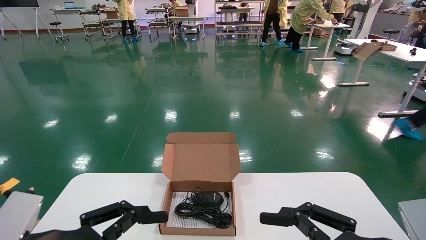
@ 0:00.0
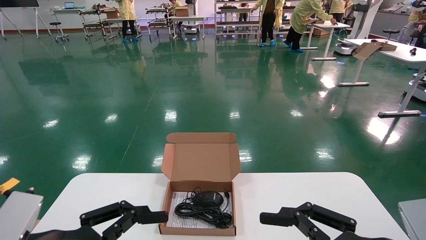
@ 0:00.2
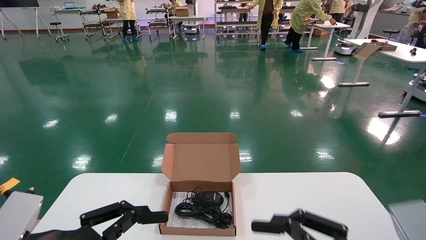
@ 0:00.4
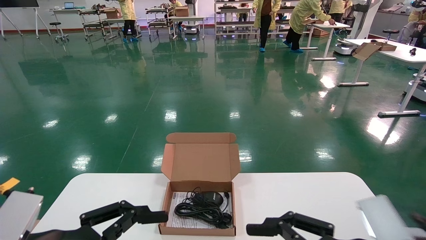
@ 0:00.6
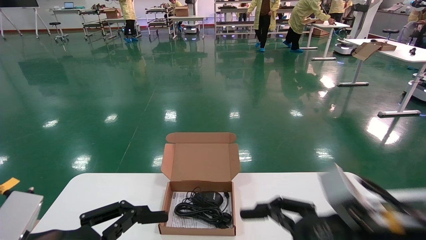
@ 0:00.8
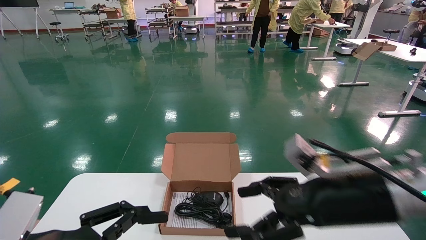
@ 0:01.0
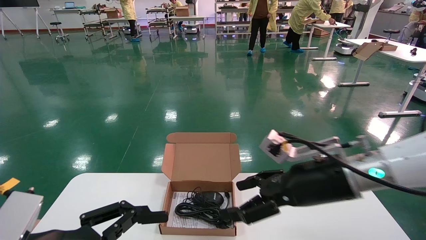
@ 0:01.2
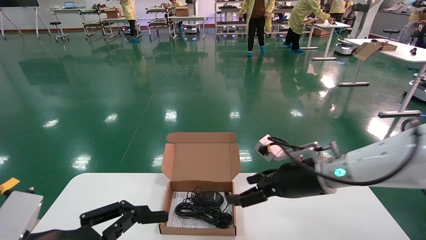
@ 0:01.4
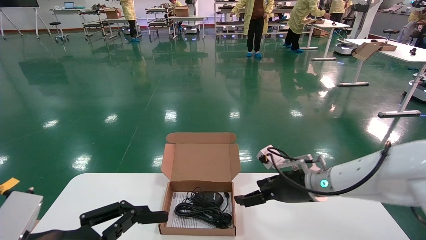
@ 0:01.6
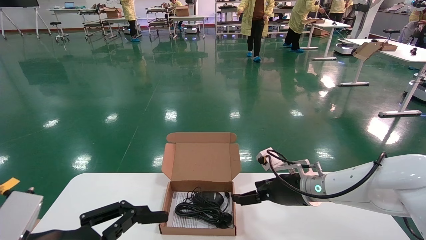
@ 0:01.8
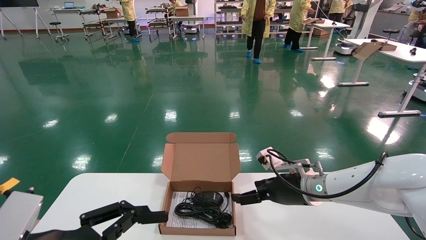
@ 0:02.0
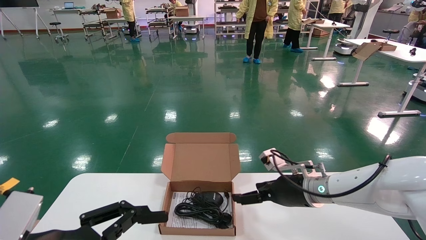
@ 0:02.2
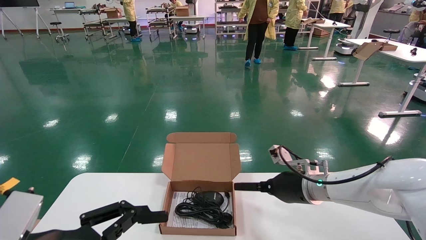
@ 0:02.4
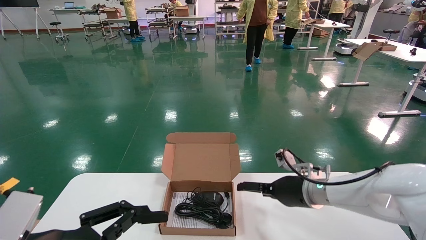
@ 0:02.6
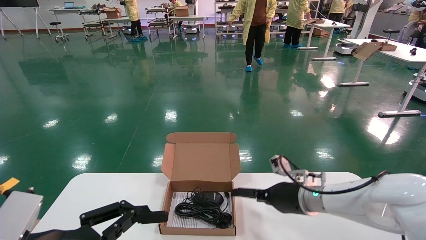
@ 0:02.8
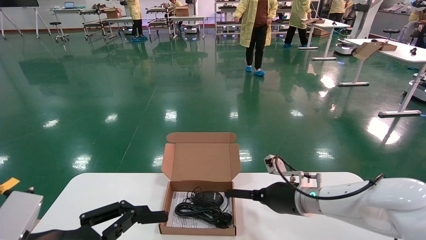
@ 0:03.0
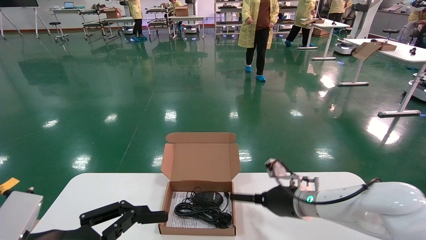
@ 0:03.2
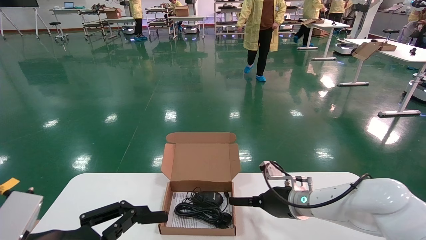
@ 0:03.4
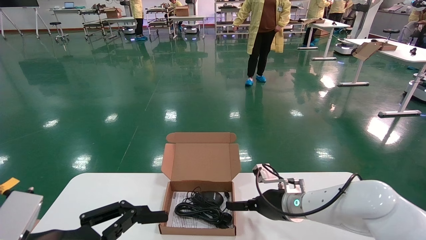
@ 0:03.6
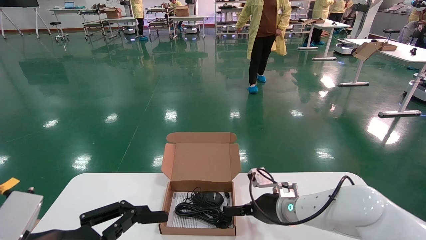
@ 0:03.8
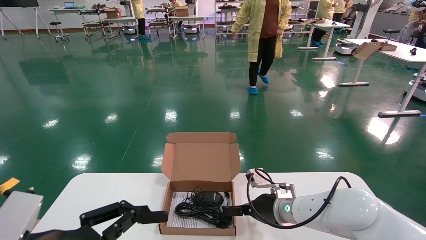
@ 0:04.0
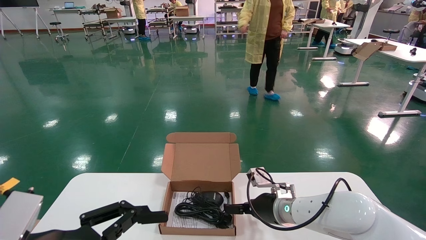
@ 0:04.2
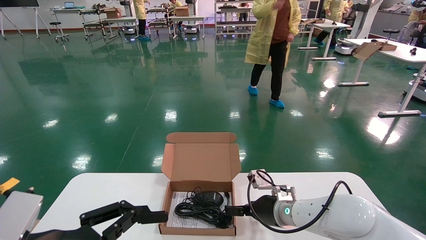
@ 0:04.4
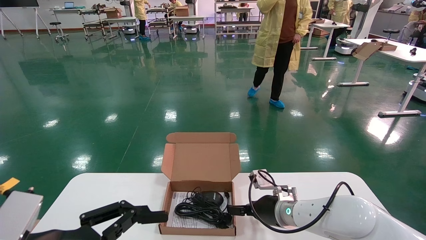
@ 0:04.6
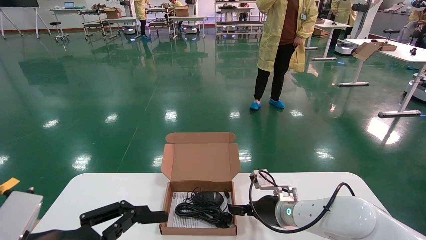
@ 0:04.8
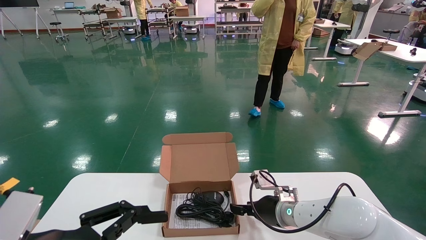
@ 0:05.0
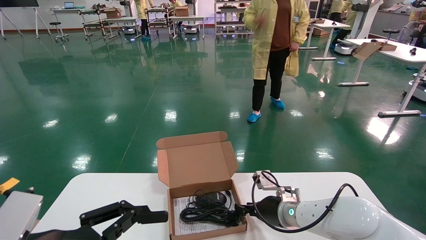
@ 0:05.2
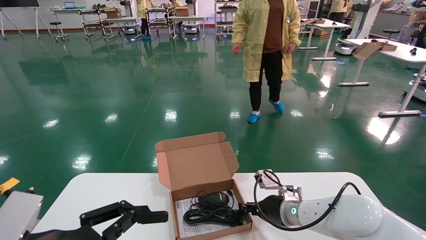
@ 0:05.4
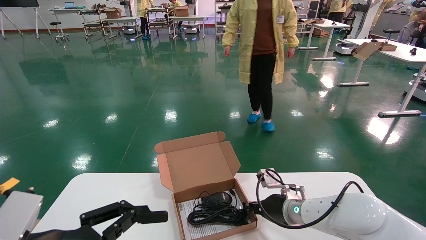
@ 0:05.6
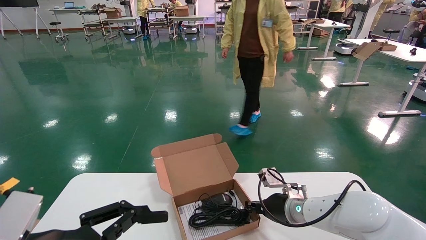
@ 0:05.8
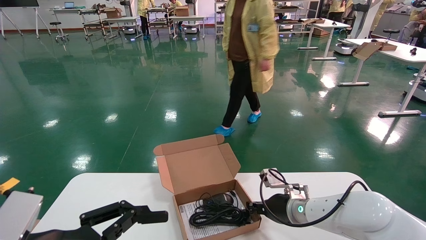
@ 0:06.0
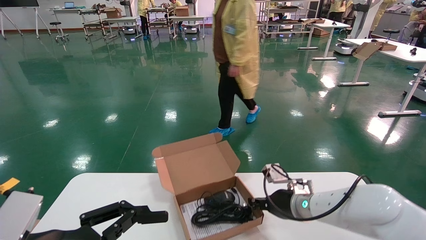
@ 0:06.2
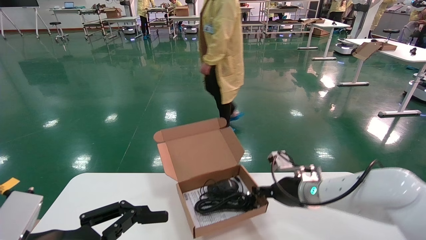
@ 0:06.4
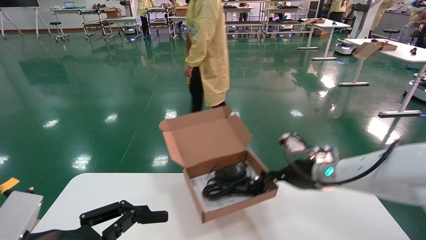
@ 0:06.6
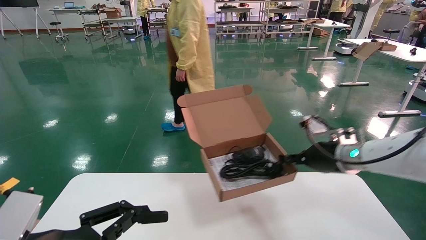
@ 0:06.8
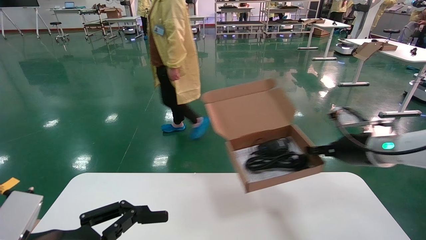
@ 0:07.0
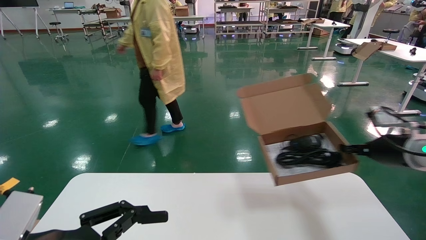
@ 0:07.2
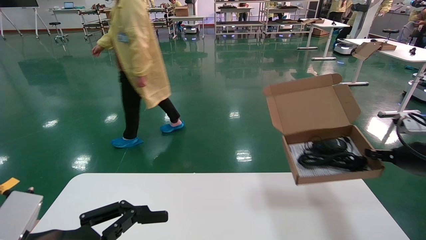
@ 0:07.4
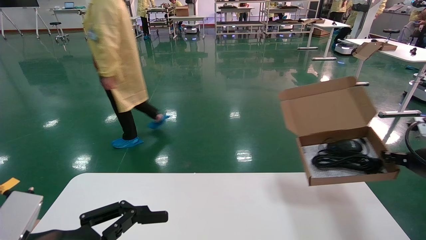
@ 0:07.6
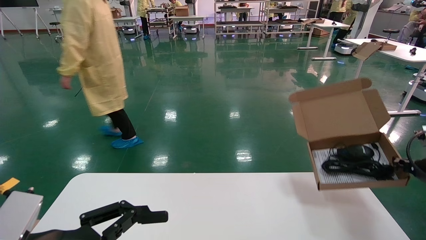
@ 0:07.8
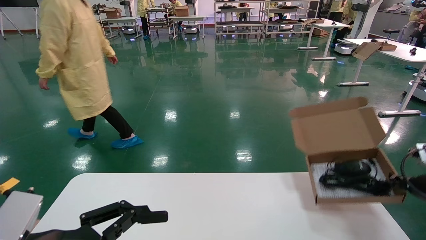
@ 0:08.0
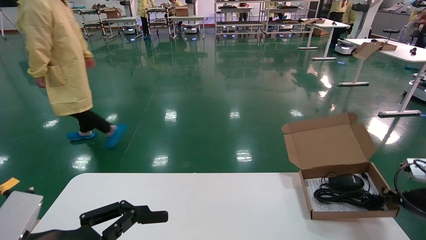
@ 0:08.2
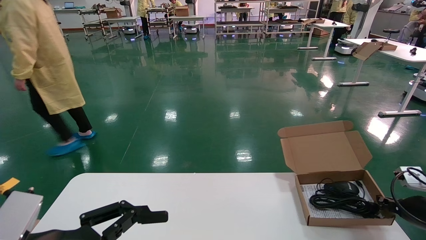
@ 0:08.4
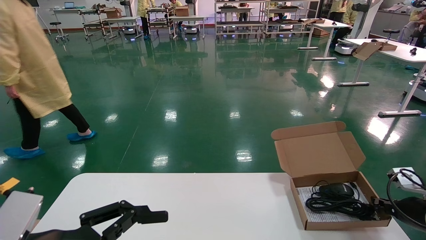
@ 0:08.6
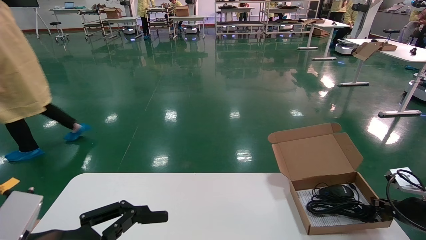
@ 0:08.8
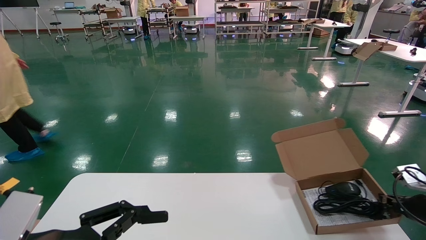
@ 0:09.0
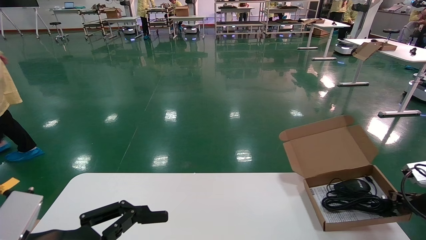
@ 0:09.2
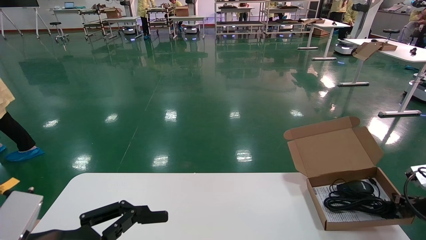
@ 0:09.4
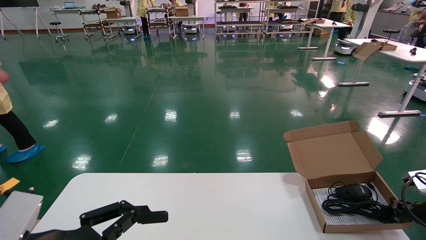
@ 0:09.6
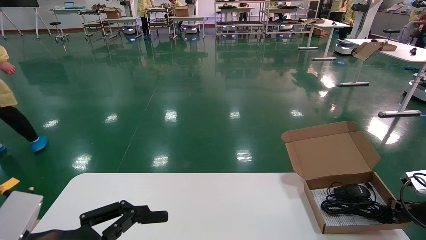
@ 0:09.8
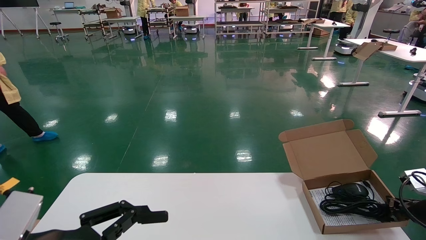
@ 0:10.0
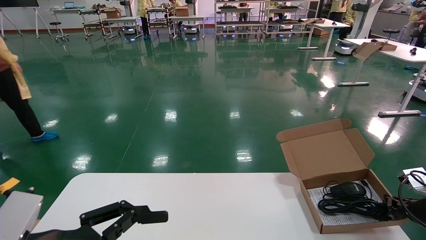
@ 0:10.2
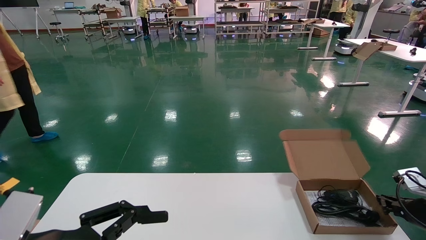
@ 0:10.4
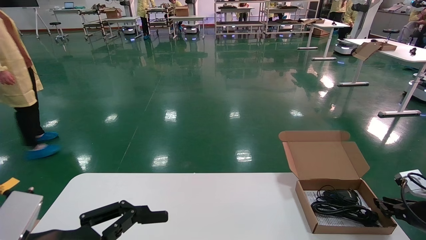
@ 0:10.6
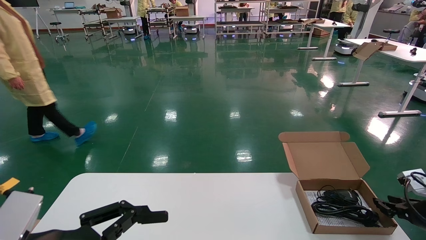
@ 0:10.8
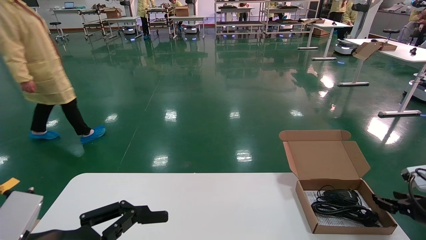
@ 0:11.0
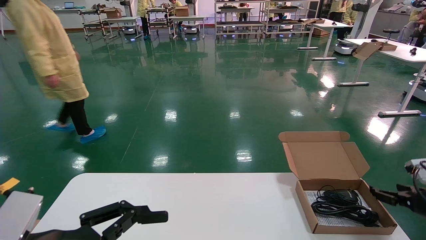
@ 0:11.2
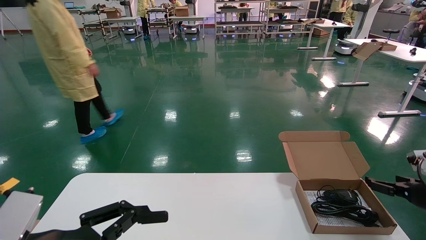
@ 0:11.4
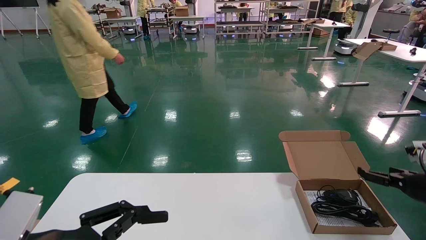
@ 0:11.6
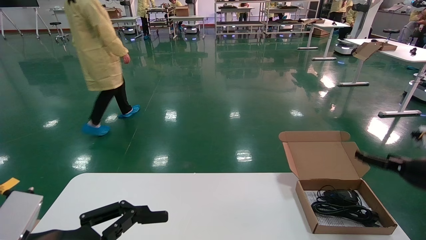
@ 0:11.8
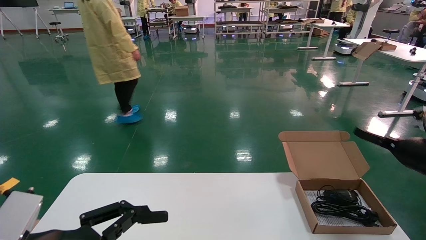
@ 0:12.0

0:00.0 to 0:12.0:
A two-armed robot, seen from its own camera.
Task of the whole recording: move the position of the storage box with accessories on the table.
Step, 0:00.8 to 0:05.6: Grab and pick up the open mouse box from the accessory packaging area.
Step, 0:05.8 to 0:10.6: Place the open mouse box onto the operation table.
0:00.0 to 0:01.6: The right gripper travels forward by some 25 cm.
0:01.6 to 0:03.0: The right gripper is displaced downward by roughly 5 cm.
0:03.0 to 0:04.4: The right gripper moves approximately 5 cm.
0:04.4 to 0:06.0: The right gripper closes its fingers.
0:06.0 to 0:07.6: The right gripper heads to the right, covering some 30 cm.
0:07.6 to 0:09.0: The right gripper goes approximately 10 cm downward.
0:09.0 to 0:10.4: The grippers move only a little.
0:10.4 to 0:12.0: The right gripper moves upward, about 10 cm, and opens its fingers.

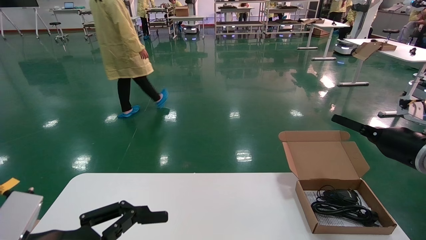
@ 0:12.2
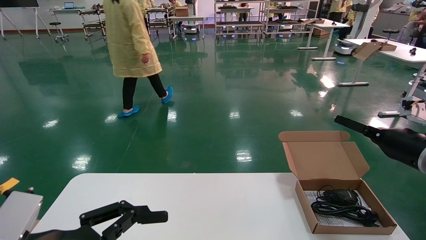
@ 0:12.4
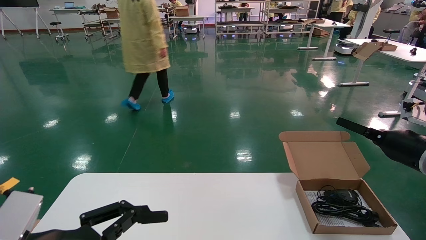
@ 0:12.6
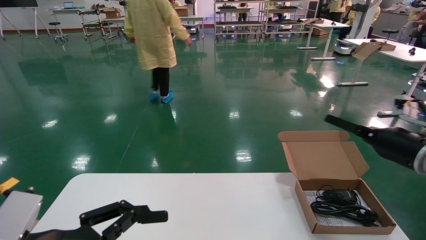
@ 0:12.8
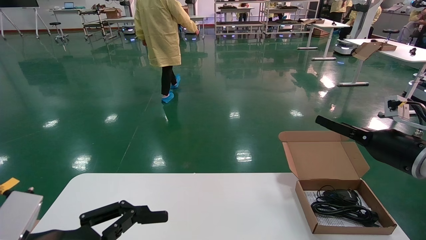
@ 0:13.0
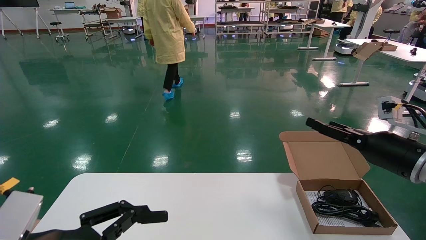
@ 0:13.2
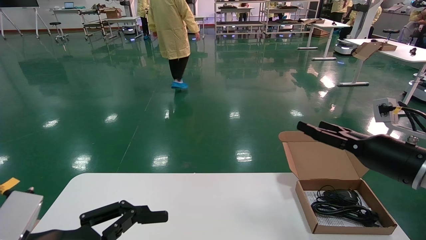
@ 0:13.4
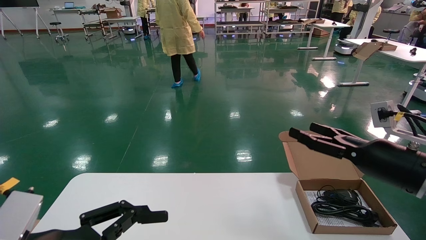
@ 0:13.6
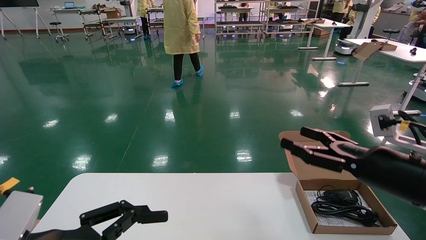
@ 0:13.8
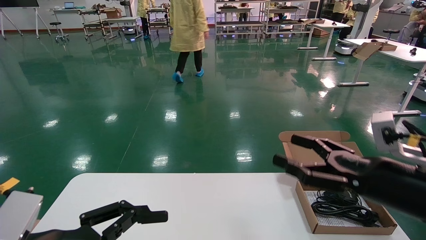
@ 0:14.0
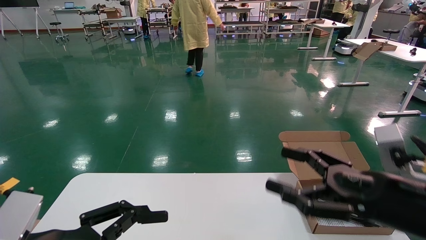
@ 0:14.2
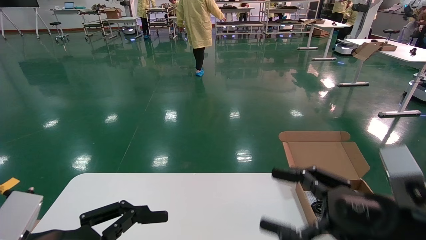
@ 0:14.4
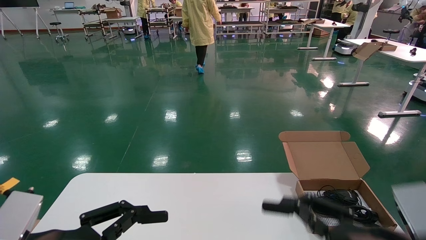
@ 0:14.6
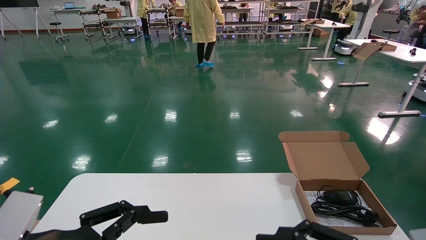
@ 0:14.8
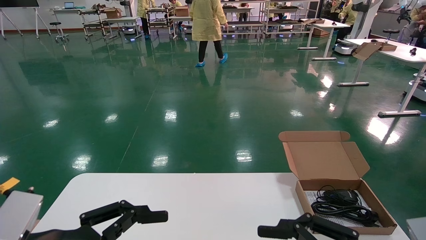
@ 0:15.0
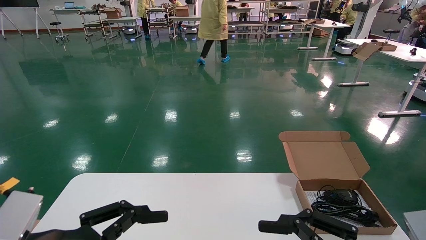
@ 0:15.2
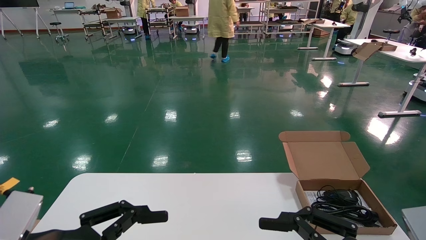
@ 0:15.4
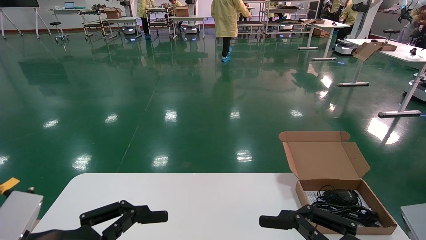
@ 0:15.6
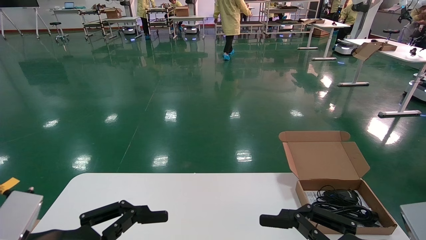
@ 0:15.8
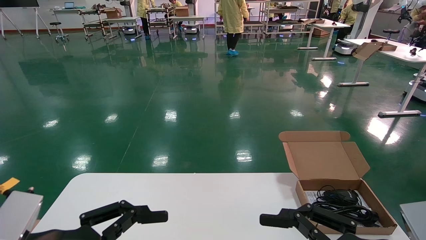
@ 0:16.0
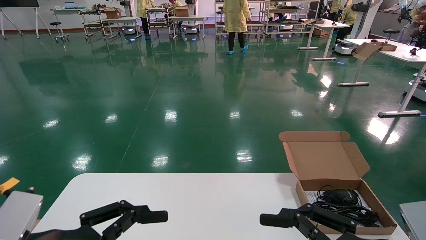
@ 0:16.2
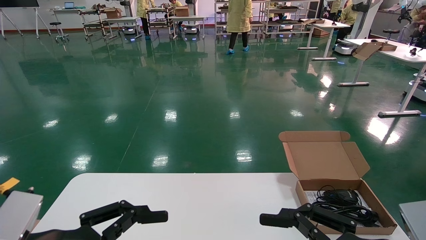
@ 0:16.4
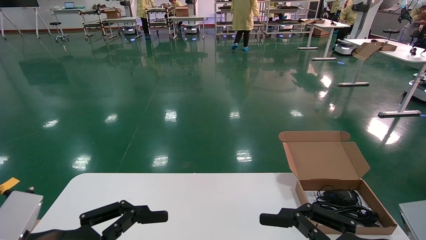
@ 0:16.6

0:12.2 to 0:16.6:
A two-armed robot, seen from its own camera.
Task of the whole recording: move the position of the storage box with accessories on the table.
0:12.2 to 0:13.6: The right gripper goes roughly 10 cm to the left and backward.
0:13.6 to 0:15.2: The right gripper heads backward and to the left, covering about 20 cm.
0:15.2 to 0:16.6: The two grippers keep their place.
